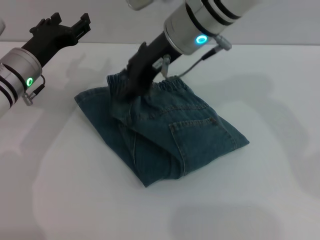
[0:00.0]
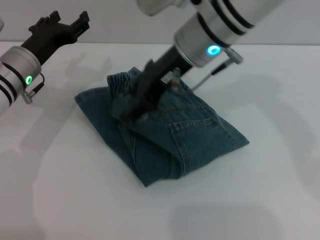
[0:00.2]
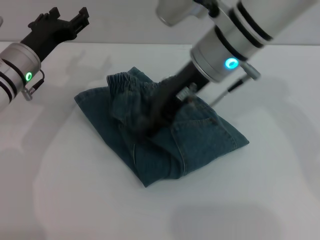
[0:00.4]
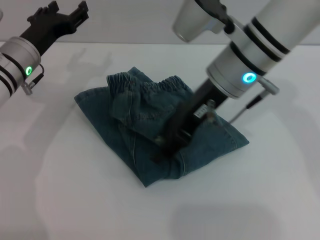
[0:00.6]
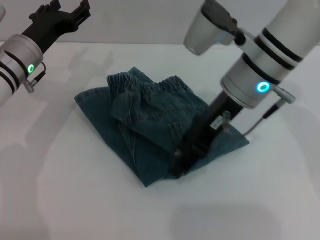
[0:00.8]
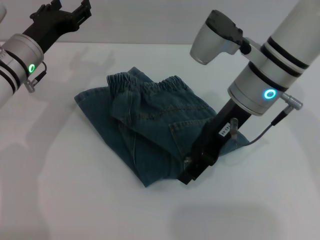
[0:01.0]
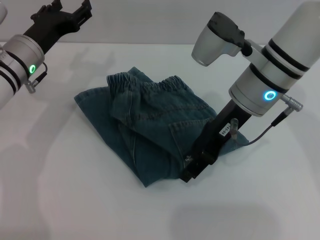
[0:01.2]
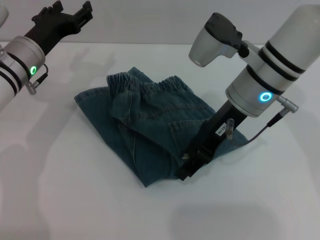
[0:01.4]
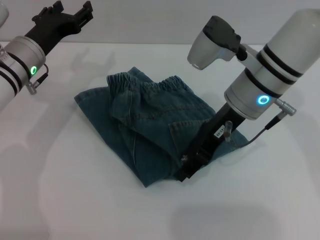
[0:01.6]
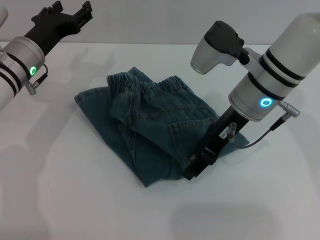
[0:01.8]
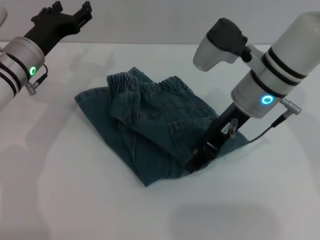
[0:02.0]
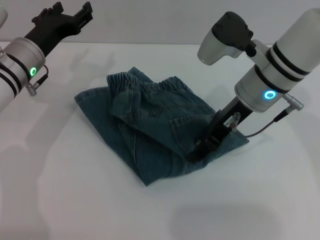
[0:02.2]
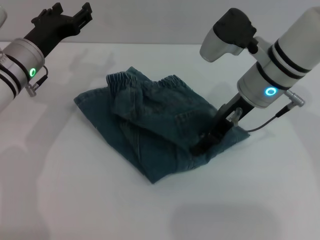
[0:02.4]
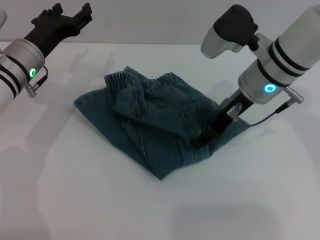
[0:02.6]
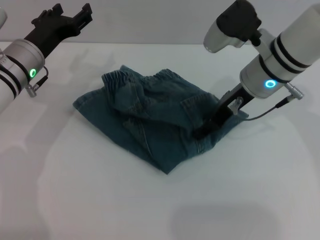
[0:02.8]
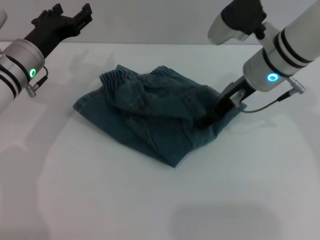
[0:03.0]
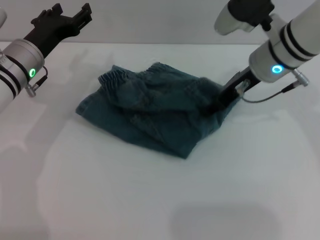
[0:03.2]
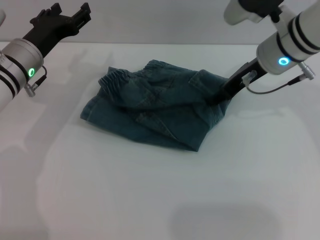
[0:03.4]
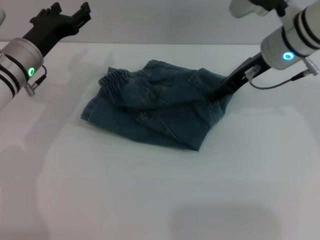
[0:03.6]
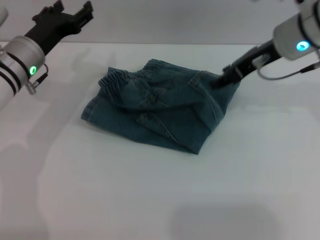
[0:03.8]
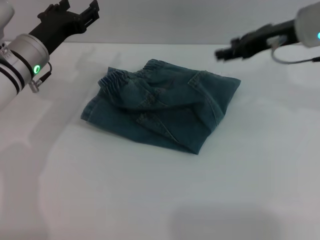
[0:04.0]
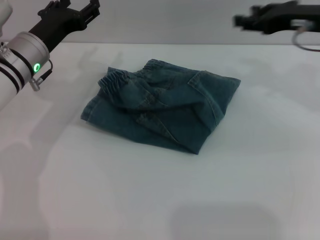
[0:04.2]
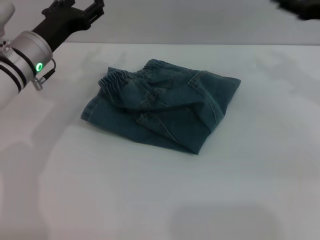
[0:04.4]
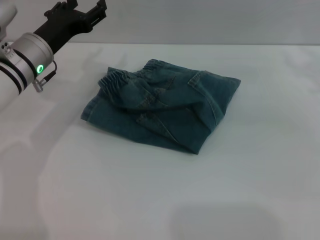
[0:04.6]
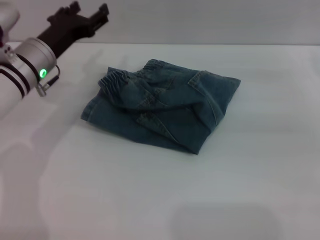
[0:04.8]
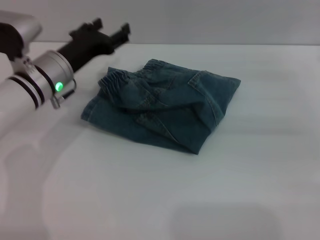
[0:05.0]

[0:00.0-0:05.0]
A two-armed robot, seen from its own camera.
Step, 0:00.0 to 0:03.2: Place the folded trousers onto the center area with the right grippers.
0:00.0 to 0:01.6: The right gripper goes some 10 cm to the right and downward.
0:01.6 to 0:03.4: The right gripper shifts about 10 cm forward and to the right.
0:03.4 to 0:05.0: The right gripper goes roughly 20 cm to the right.

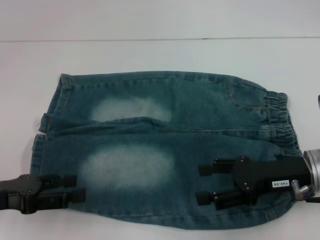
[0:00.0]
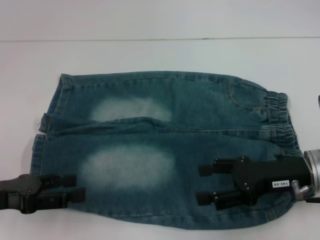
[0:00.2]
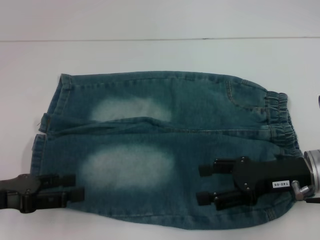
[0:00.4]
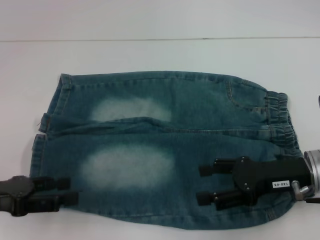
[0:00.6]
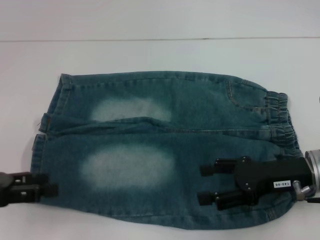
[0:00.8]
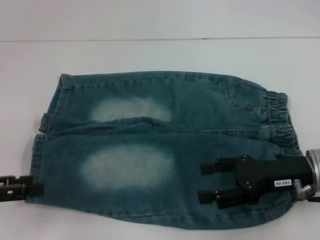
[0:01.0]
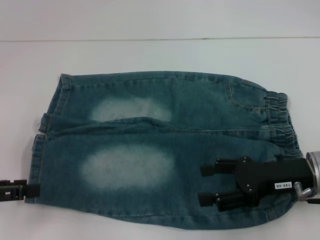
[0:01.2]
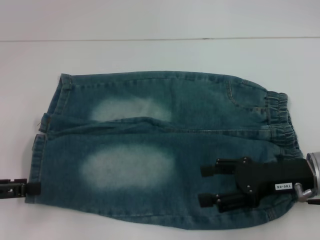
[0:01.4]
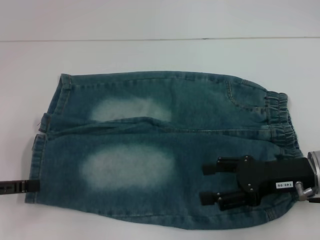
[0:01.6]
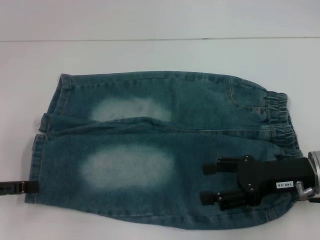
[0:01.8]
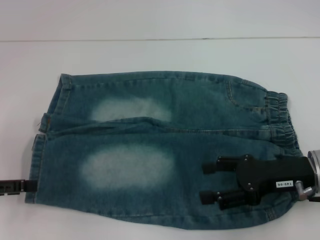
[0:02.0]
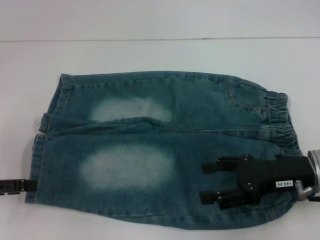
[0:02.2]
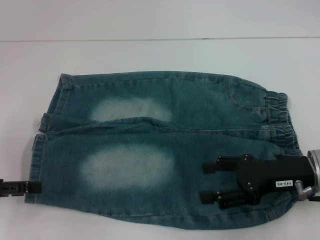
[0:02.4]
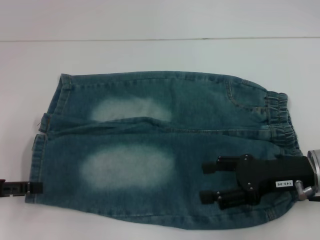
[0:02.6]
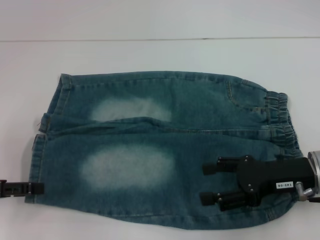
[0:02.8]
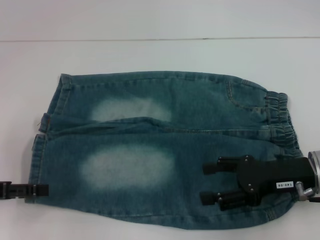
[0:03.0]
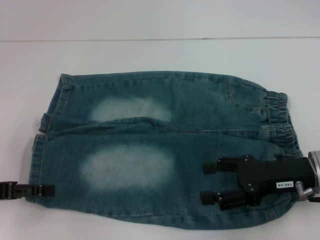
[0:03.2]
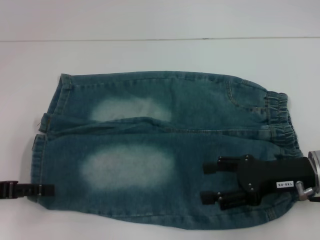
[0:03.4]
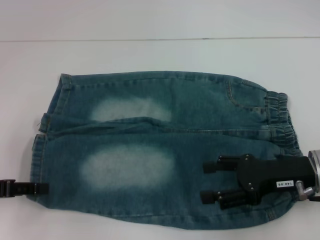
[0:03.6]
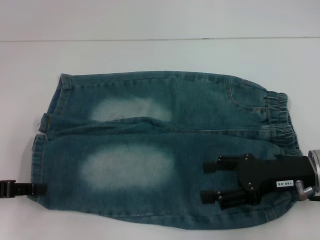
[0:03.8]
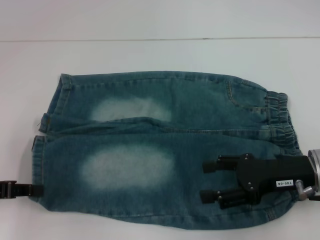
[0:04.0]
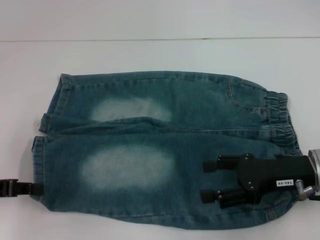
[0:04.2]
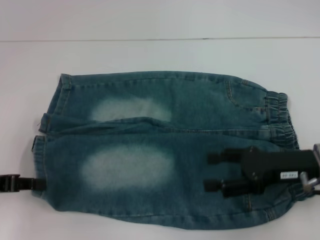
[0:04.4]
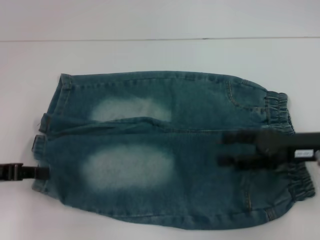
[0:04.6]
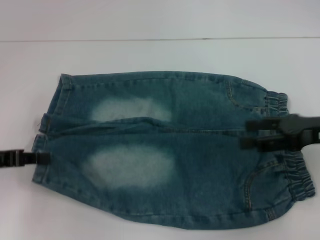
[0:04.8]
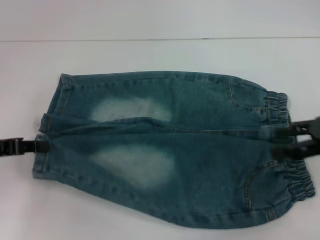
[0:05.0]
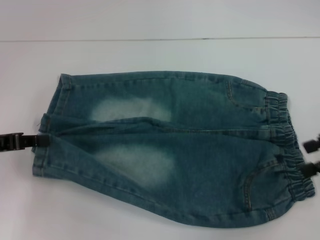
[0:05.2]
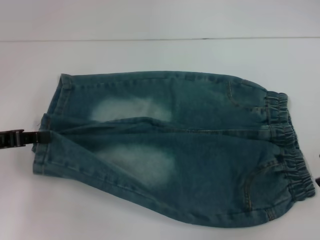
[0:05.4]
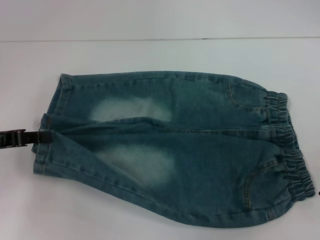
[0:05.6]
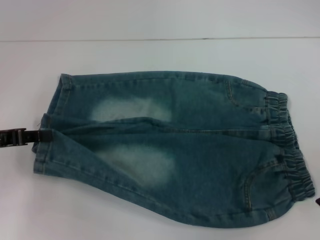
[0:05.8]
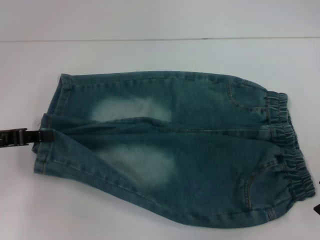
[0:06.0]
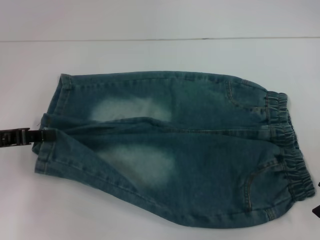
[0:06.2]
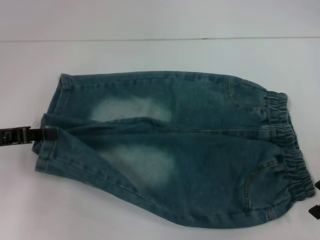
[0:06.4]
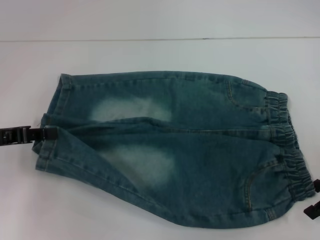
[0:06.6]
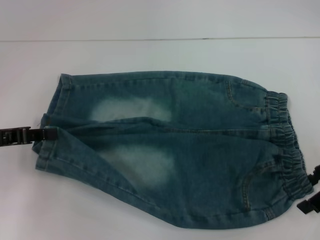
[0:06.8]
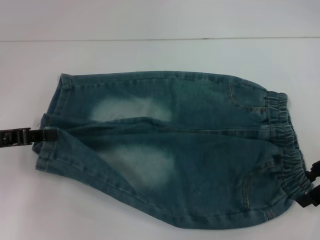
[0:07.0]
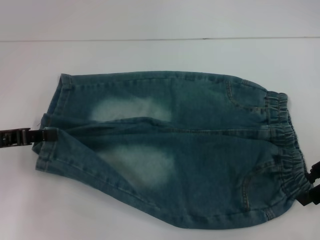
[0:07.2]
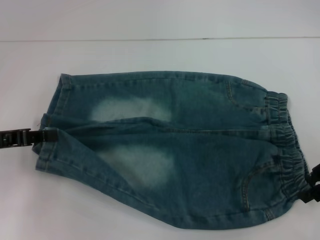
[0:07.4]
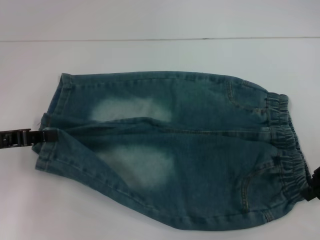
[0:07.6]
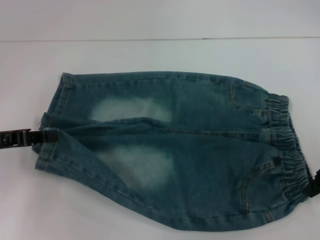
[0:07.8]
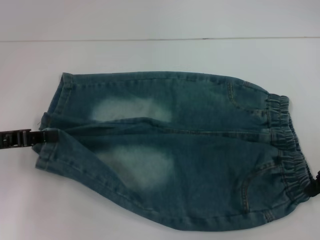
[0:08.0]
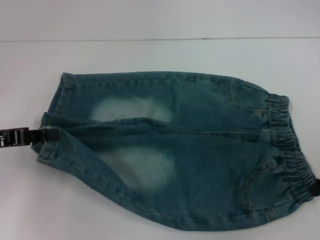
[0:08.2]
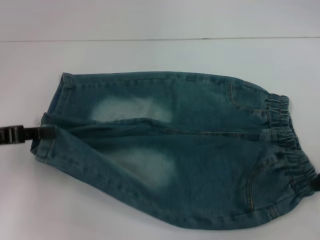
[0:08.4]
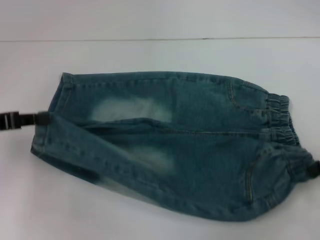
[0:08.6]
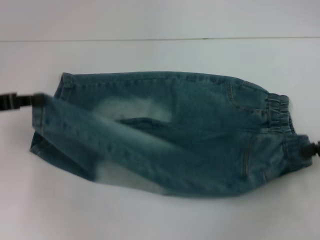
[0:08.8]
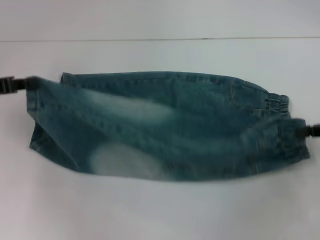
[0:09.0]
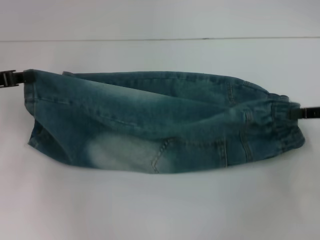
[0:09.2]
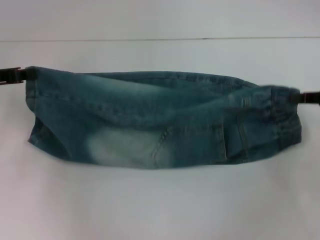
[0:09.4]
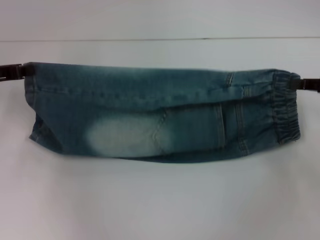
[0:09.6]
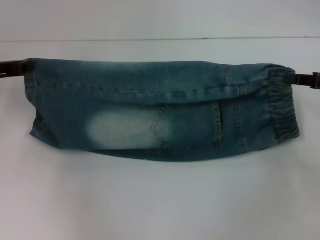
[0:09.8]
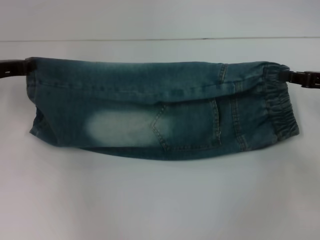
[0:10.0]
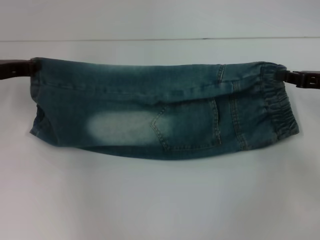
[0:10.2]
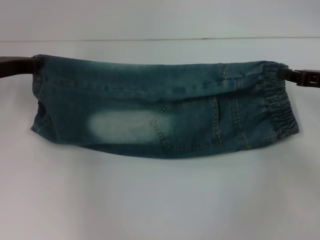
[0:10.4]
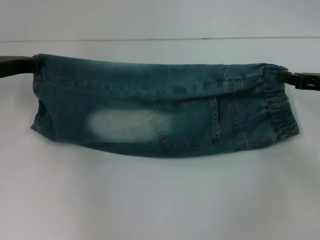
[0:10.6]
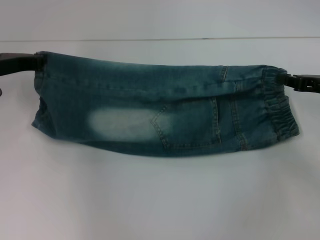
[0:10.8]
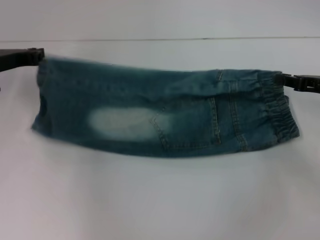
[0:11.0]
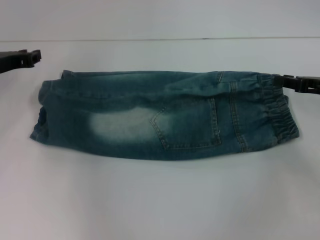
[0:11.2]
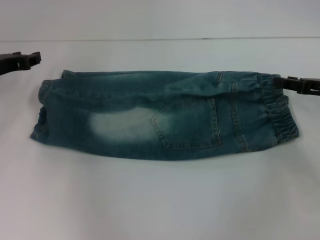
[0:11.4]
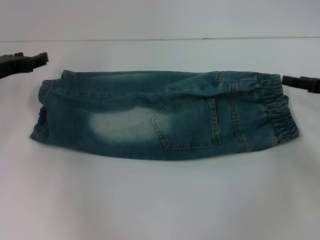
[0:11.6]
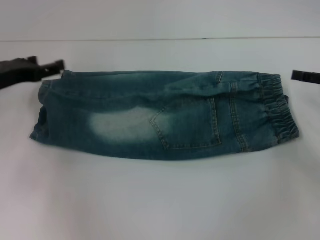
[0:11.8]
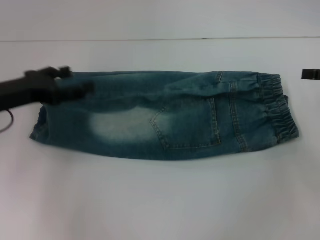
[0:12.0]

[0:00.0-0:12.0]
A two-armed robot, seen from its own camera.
Step, 0:00.0 to 0:04.4: Grab the lower left pant leg with your left hand.
Step, 0:04.6 to 0:07.8: Hold the lower right waistband with your right hand.
Step, 0:08.0 to 0:11.4: Fold upward with your right hand.
0:00.0 to 0:01.6: The left gripper is displaced to the left by approximately 5 cm.
0:03.0 to 0:04.4: The left gripper closes its fingers.
0:04.4 to 0:06.0: The right gripper moves to the right and upward, roughly 10 cm.
0:06.0 to 0:07.6: The right gripper closes up.
0:07.6 to 0:09.0: The right gripper closes its fingers. The left gripper moves approximately 5 cm.
0:09.0 to 0:10.4: The right gripper moves approximately 5 cm, while the left gripper travels forward by some 5 cm.
0:10.4 to 0:12.0: The right gripper moves roughly 5 cm, and opens up. Meanwhile the left gripper moves backward, some 5 cm, and opens.

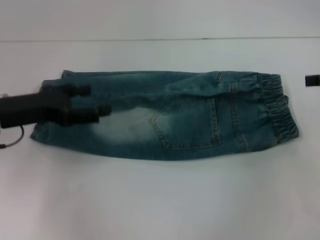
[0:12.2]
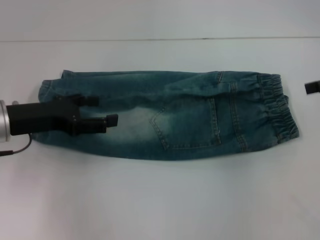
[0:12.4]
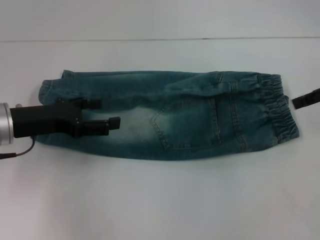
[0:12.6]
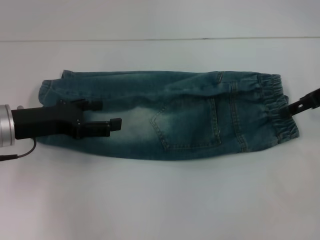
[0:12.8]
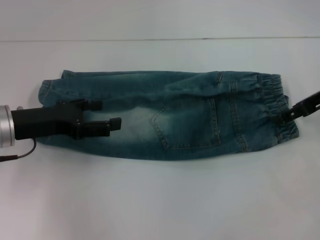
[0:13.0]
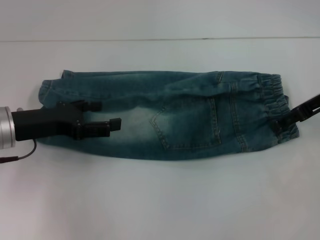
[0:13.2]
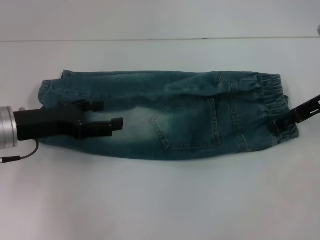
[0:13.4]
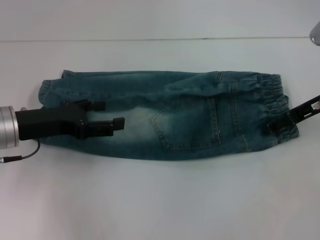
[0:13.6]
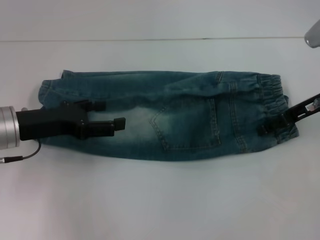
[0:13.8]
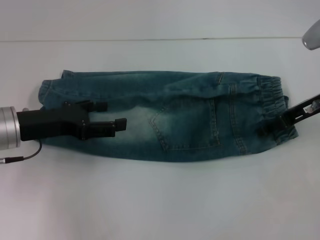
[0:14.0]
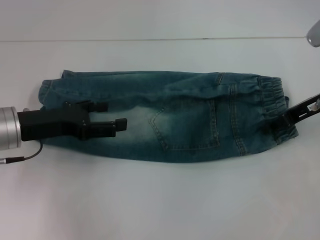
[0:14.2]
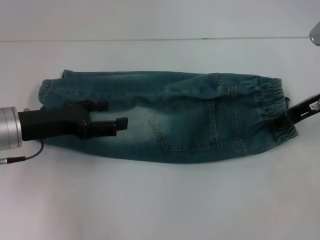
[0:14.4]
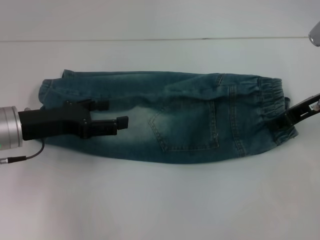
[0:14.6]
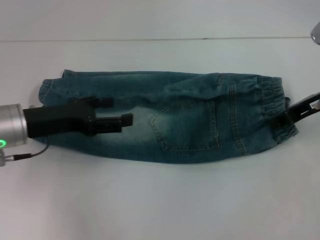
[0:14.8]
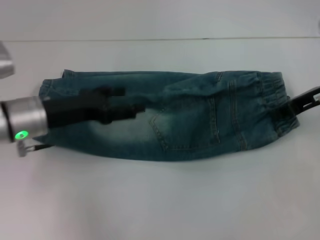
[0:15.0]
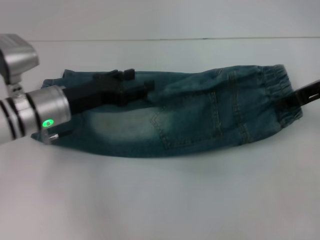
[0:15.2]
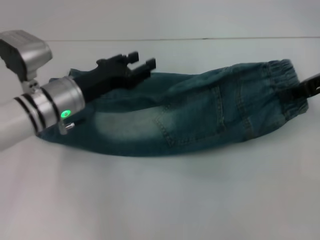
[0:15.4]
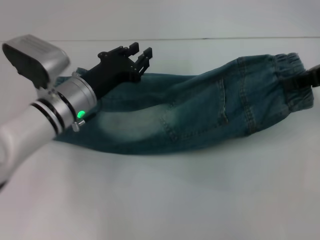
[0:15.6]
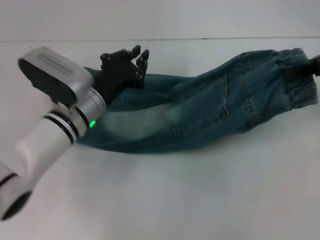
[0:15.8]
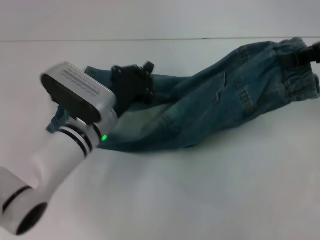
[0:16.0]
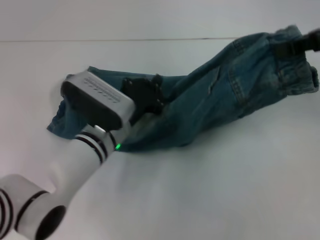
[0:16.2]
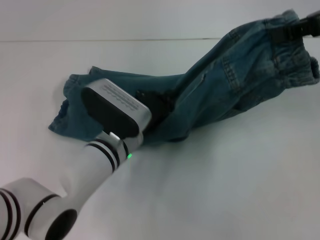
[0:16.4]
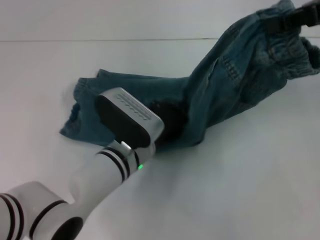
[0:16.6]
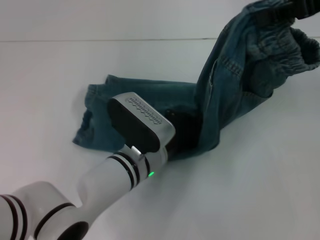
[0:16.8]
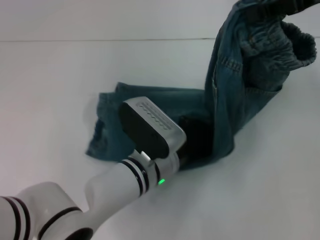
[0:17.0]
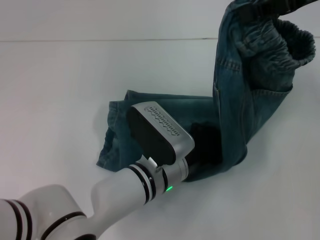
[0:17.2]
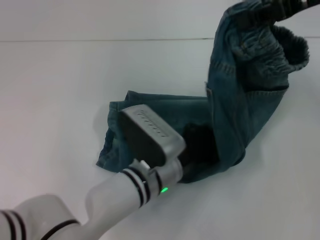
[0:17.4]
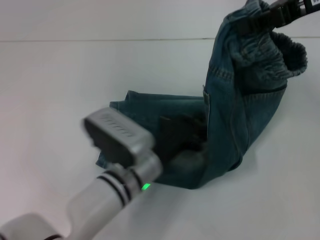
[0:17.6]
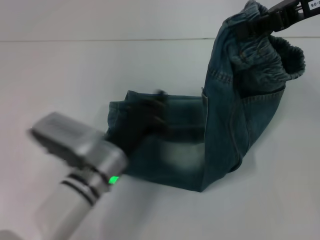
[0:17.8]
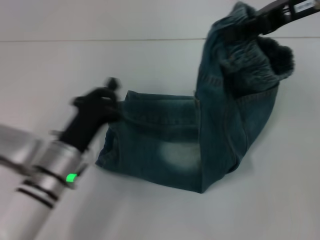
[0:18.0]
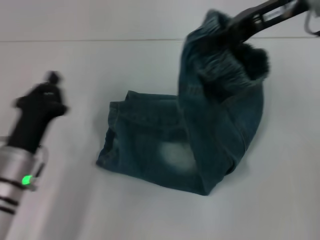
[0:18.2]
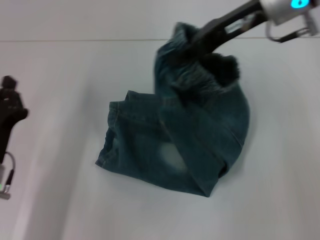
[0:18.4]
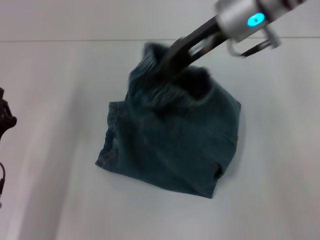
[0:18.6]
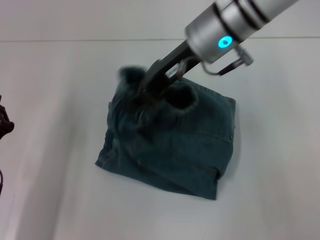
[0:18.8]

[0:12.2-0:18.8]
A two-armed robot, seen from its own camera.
Step, 0:12.2 to 0:15.2: Grab the waistband with your right hand.
Step, 0:15.4 to 0:17.4: Press the middle of the pants with your left hand.
0:12.2 to 0:13.8: The right gripper is displaced to the left by roughly 10 cm.
0:13.8 to 0:15.4: The left gripper goes roughly 10 cm to the right and forward, while the right gripper moves upward, approximately 5 cm, and closes.
0:15.4 to 0:17.2: The right gripper heads upward and to the left, covering roughly 10 cm; the left gripper goes some 15 cm to the right and backward, and closes its fingers.
0:17.2 to 0:18.8: The left gripper moves to the left, some 25 cm. Meanwhile the right gripper heads to the left and downward, covering approximately 20 cm.
